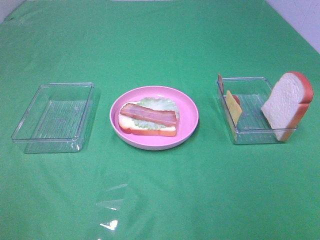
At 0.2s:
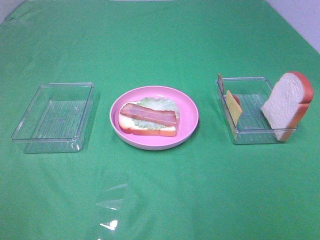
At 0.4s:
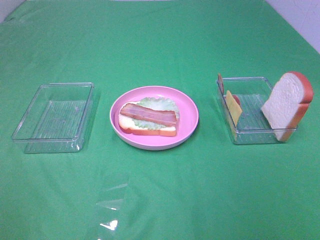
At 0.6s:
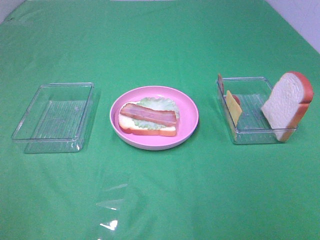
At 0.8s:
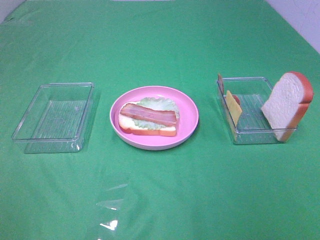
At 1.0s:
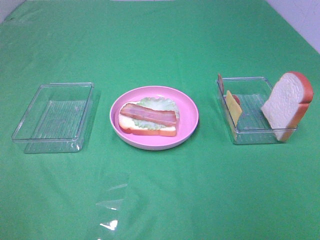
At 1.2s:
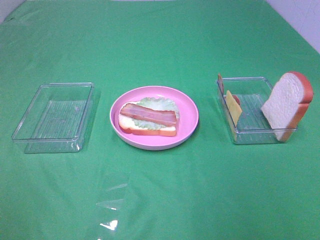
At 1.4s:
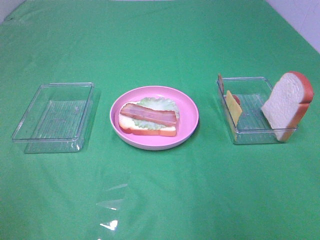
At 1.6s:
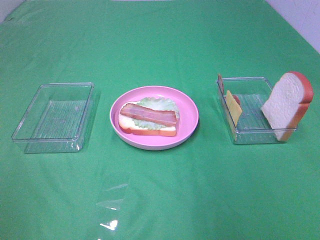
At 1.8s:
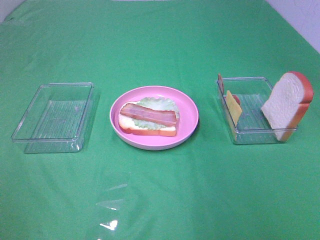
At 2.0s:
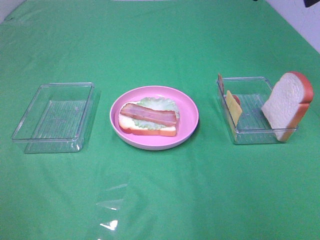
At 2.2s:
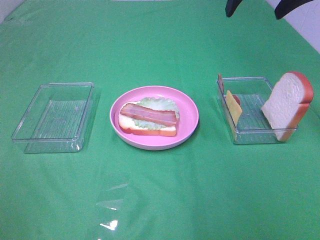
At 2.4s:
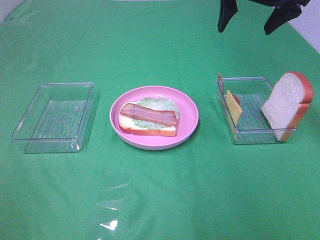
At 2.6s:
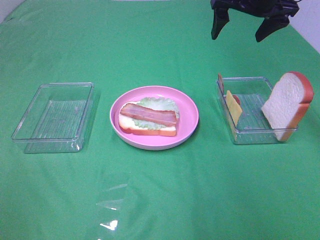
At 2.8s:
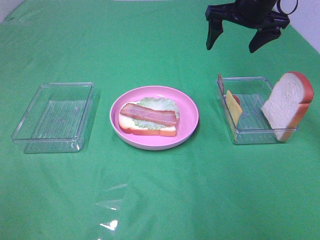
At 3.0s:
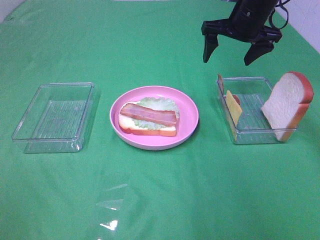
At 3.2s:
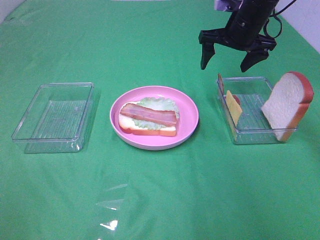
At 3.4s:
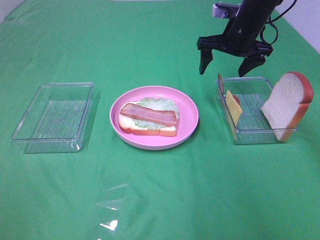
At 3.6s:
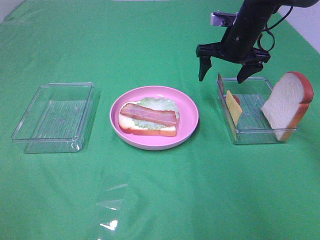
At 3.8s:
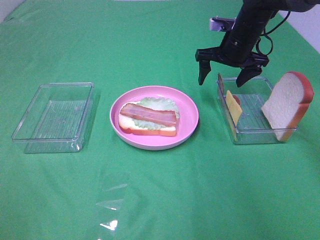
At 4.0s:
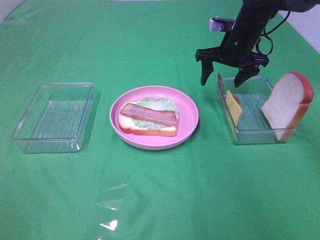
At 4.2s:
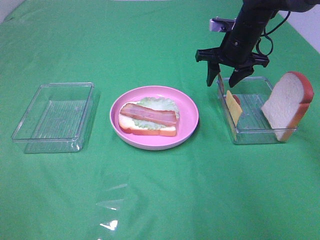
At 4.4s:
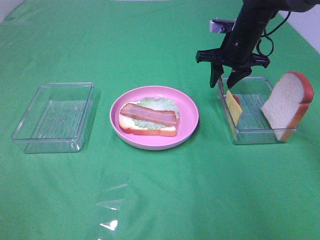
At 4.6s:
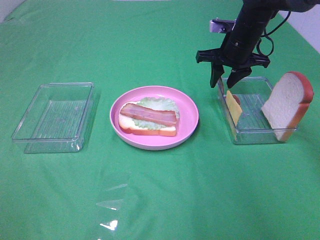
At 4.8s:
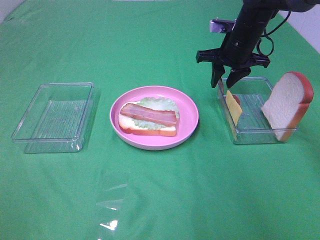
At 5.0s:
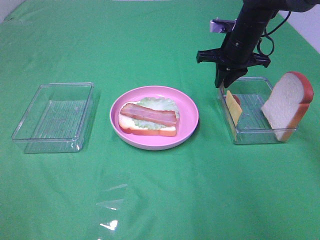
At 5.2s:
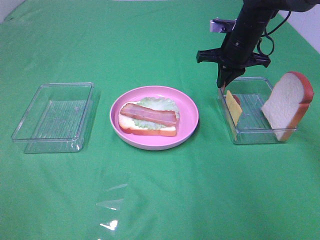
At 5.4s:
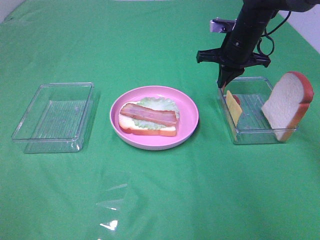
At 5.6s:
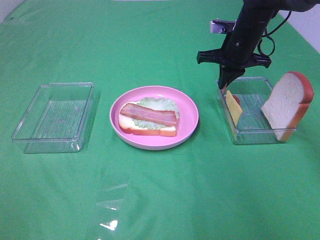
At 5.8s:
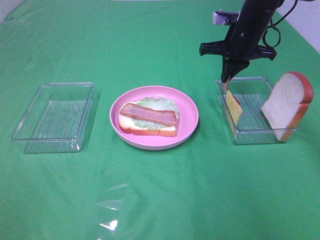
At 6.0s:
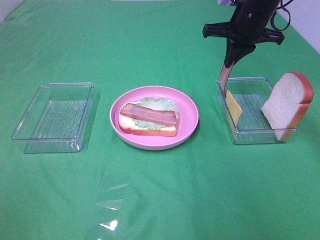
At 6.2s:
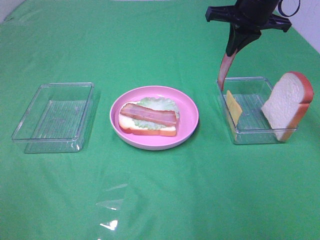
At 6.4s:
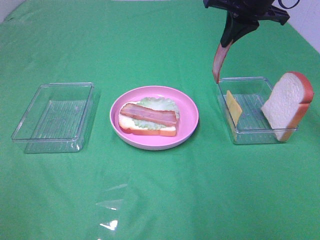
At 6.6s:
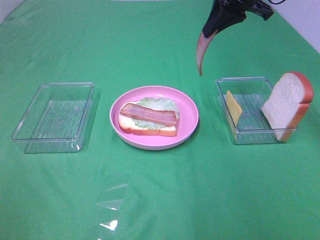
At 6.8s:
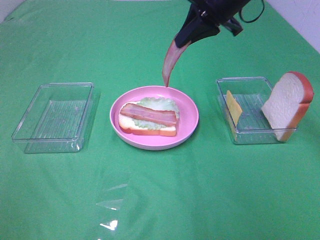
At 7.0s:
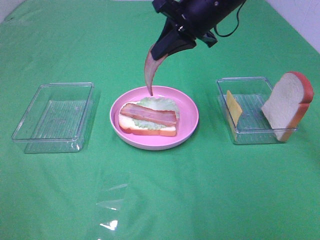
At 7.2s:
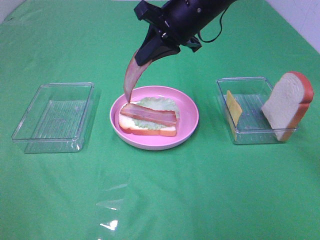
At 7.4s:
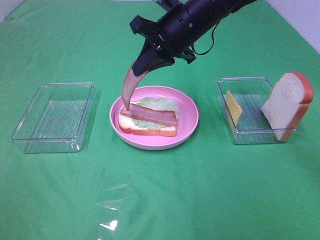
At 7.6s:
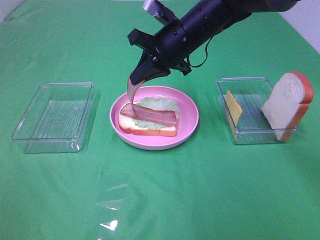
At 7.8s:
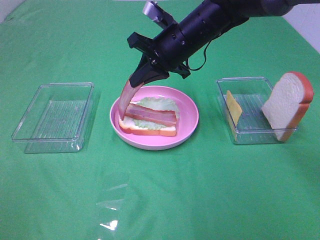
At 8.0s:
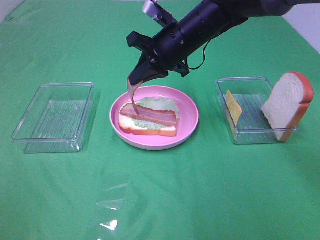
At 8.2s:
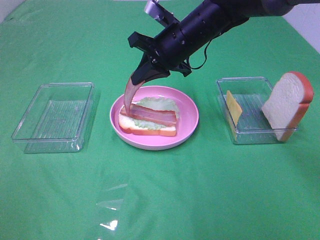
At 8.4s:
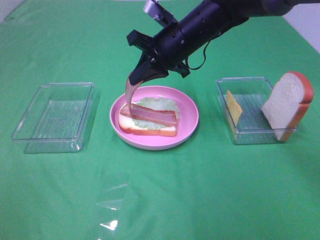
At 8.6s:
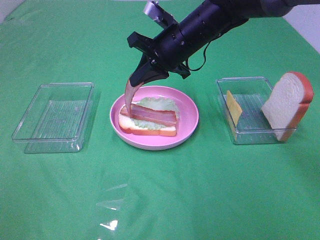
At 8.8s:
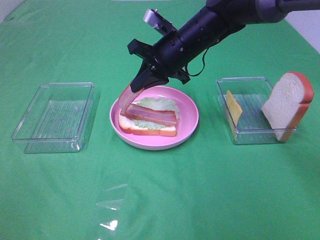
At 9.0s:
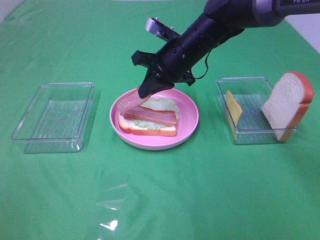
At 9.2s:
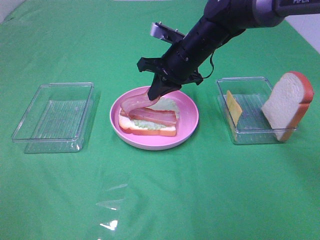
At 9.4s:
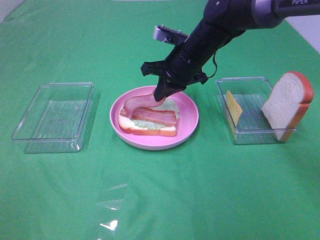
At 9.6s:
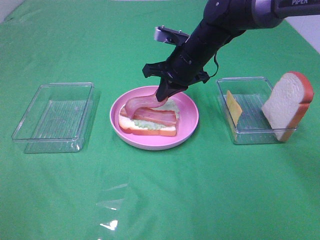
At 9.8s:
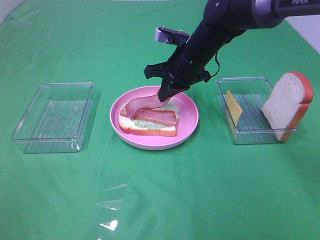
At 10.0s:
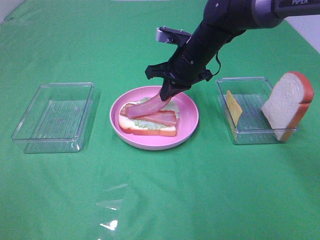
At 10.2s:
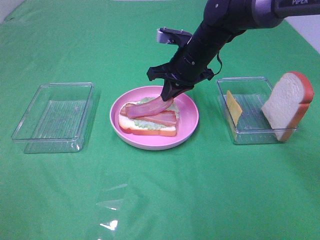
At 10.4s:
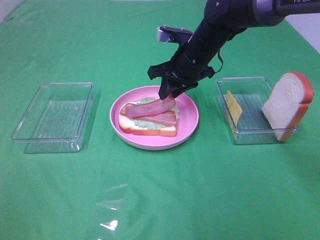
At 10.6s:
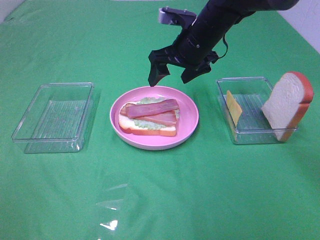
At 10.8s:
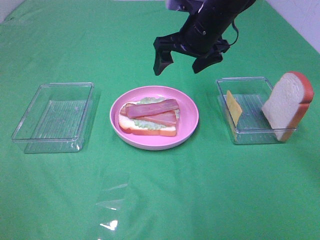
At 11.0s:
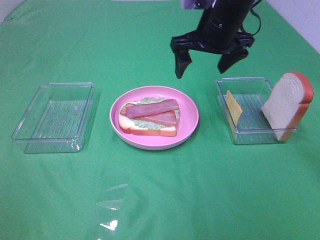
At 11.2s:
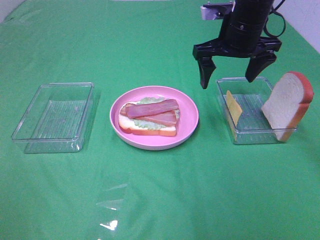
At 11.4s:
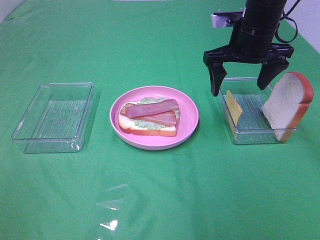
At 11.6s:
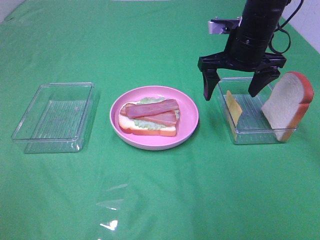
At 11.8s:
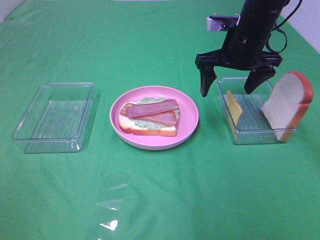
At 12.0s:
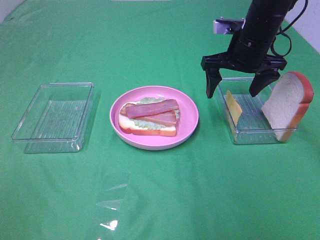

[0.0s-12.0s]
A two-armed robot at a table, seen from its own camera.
Task of the whole recording: Make sandwiches.
Step, 0.0s to 5.2s: Right hand:grab the bacon.
Step, 5.4s to 10.4s: Right hand:place bacon on bacon.
1.6s to 3.0s: The right gripper goes about 30 cm forward and downward.
3.0s to 4.4s: The right gripper moves downward, approximately 5 cm, and closes up.
4.4s to 6.0s: The right gripper travels upward by roughly 5 cm, and closes up.
6.0s to 7.6s: The right gripper goes some 15 cm to the left.
7.6s to 9.0s: The grippers make only small movements.
9.0s to 10.4s: The right gripper opens.
10.4s to 12.0s: The right gripper moves to the right, roughly 10 cm, and opens.

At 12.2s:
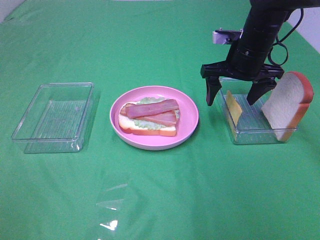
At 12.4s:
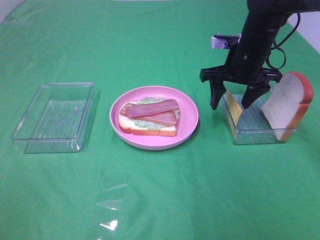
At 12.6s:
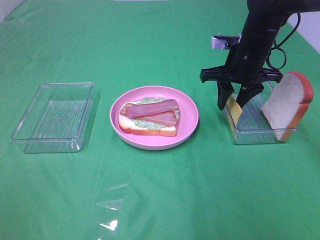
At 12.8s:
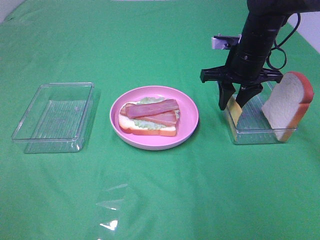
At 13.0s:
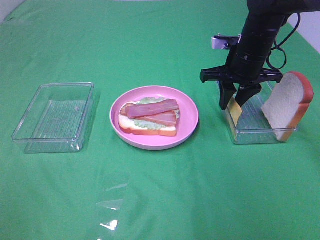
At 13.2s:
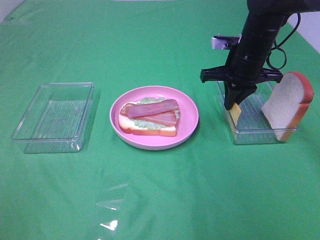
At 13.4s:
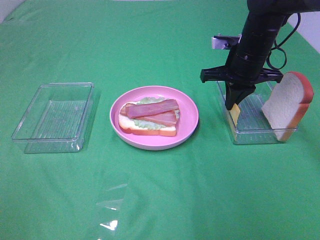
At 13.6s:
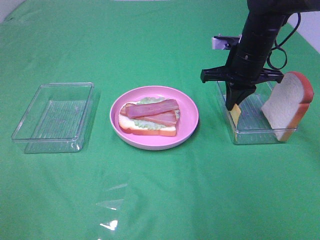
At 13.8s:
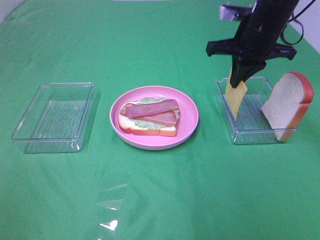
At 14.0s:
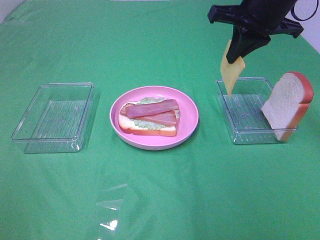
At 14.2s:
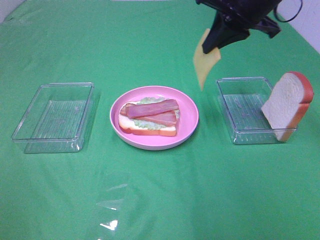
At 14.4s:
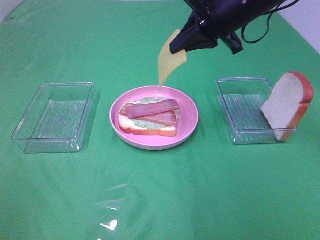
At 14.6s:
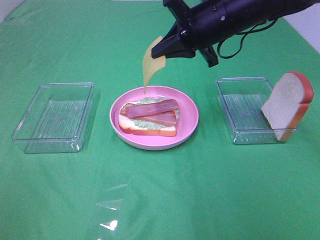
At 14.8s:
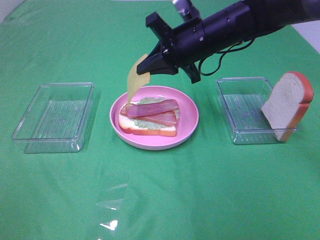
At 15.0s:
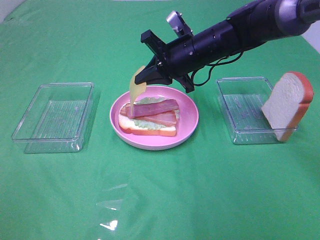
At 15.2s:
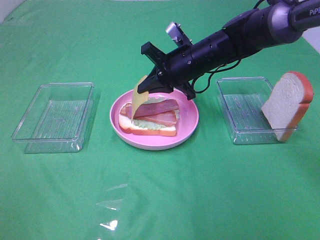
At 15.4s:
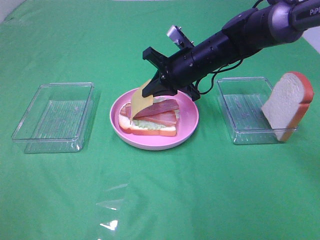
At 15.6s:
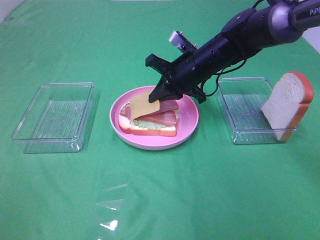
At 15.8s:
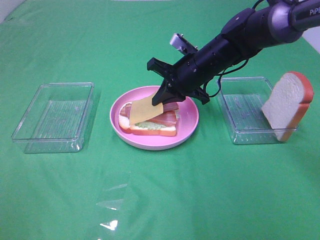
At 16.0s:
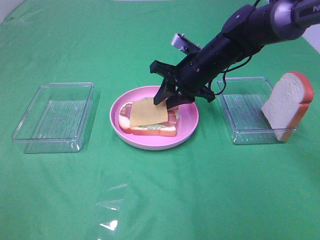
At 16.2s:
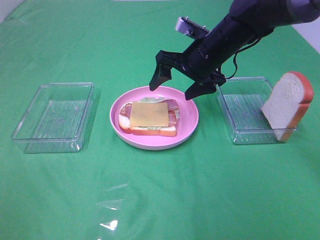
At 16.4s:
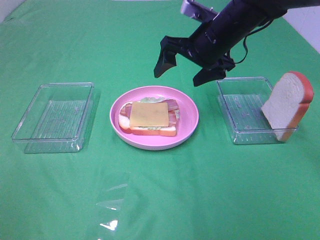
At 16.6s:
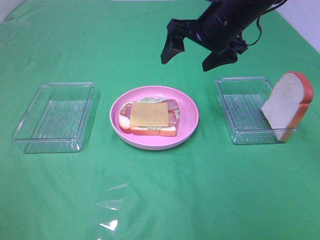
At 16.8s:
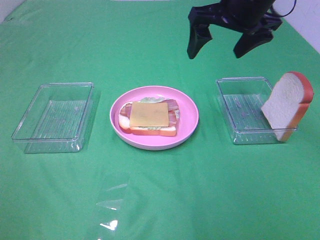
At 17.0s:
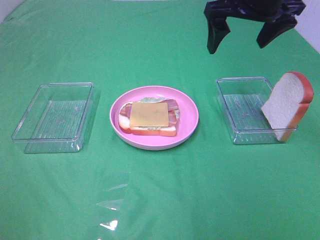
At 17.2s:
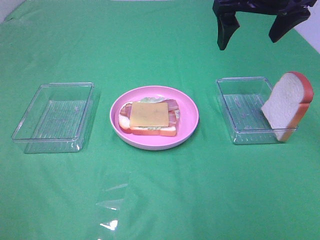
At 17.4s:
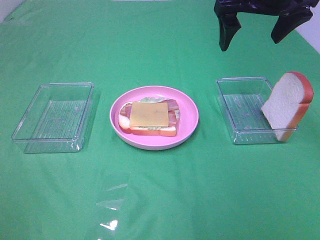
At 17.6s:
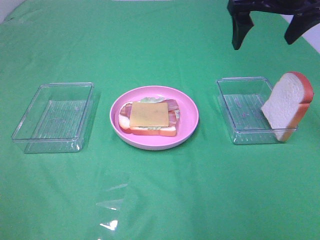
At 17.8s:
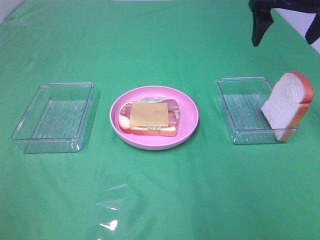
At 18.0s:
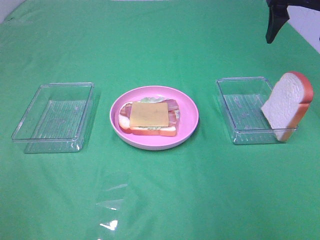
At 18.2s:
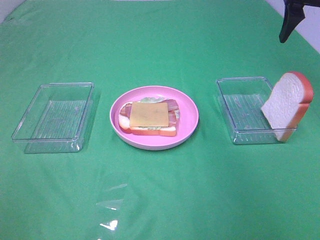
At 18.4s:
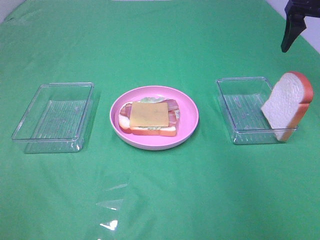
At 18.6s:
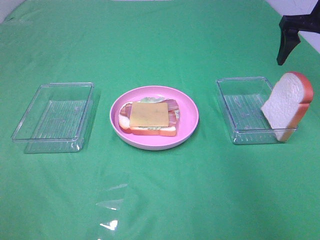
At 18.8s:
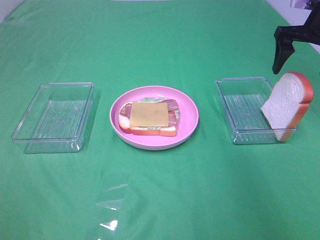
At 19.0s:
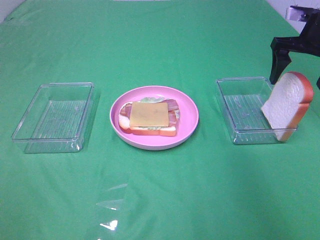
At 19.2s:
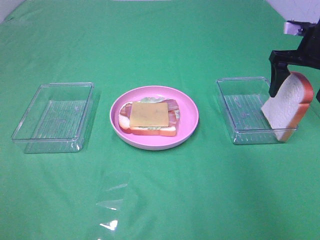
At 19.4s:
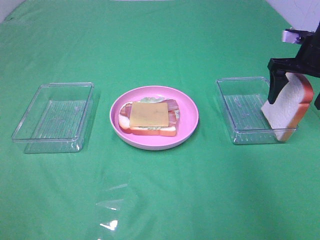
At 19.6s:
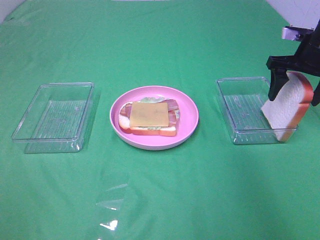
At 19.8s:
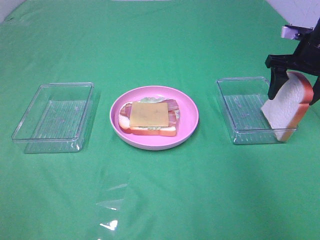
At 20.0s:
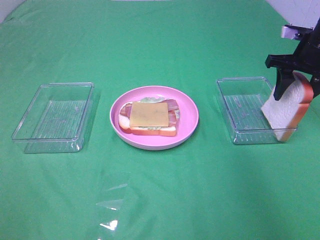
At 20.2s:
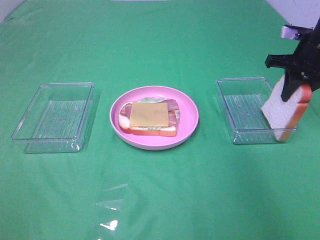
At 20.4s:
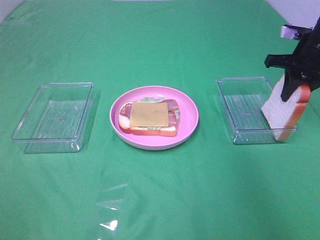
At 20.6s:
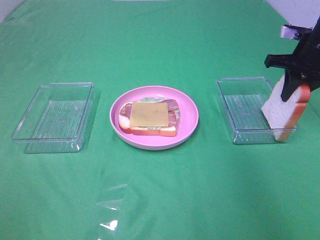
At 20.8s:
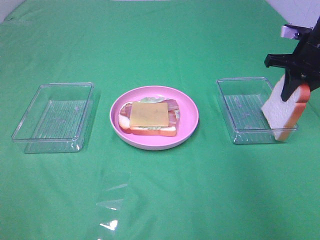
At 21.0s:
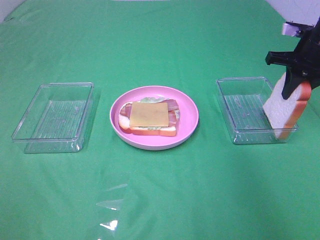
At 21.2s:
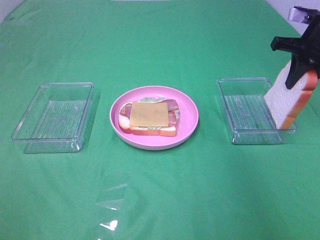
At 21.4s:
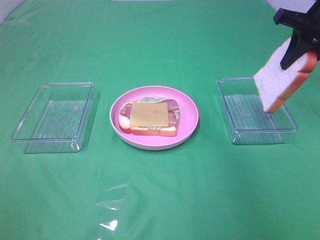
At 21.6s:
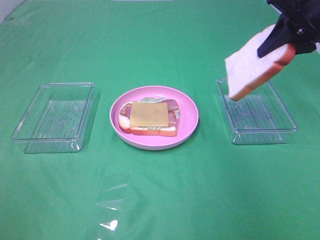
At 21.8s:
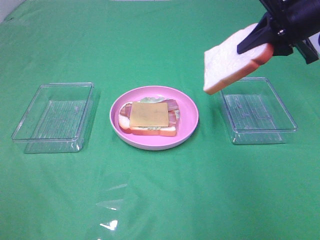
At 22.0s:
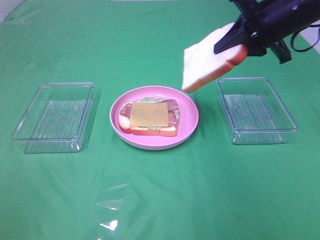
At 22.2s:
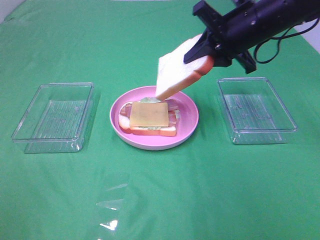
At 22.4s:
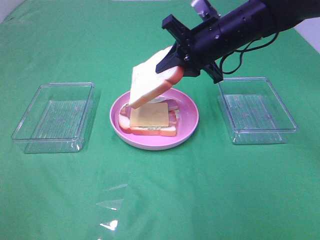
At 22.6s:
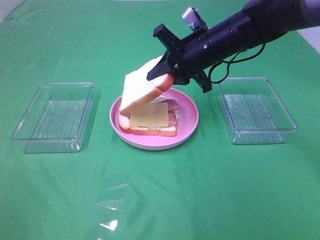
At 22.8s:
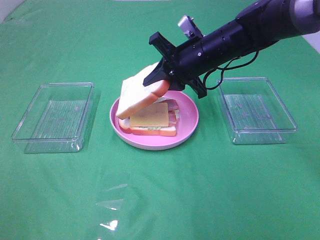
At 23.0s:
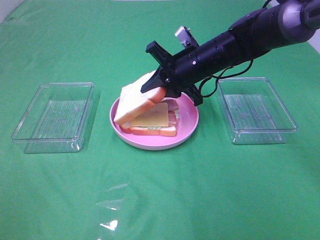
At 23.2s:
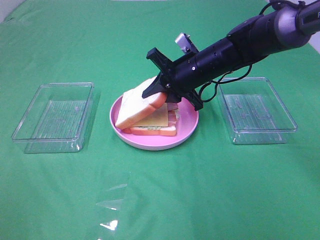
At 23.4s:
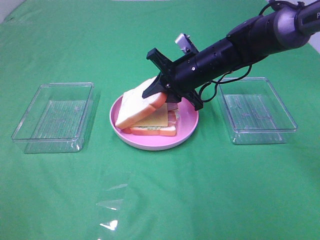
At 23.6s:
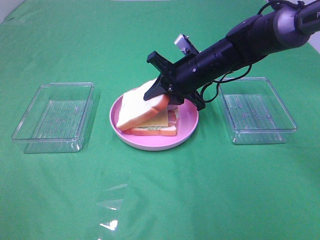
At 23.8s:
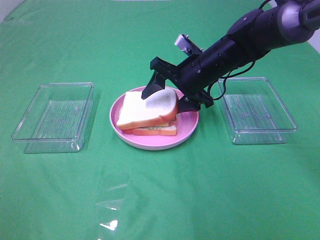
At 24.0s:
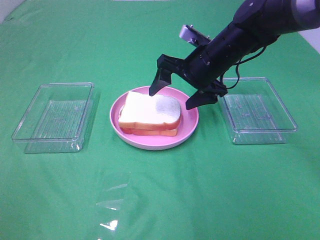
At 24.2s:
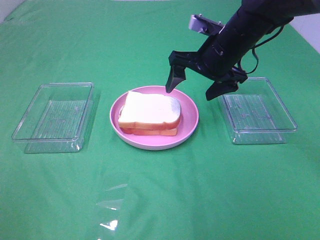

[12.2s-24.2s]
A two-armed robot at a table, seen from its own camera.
Task of the whole recording: Make sandwiches.
Step, 13.6s to 16.0s: Right hand:place the cheese slice on top of the bacon.
Step, 16.2s to 20.4s: Right hand:grab the bread slice.
Step, 20.6s to 24.0s: Right hand:place the bread slice on the cheese slice.
12.2s to 13.8s: The right gripper shifts approximately 5 cm upward, and closes its fingers.
13.8s to 15.2s: The right gripper goes roughly 15 cm to the left and downward.
15.2s to 16.6s: The right gripper goes some 10 cm upward, and opens its fingers.
16.6s to 18.2s: The right gripper heads to the right, covering about 15 cm.
18.2s to 19.8s: The right gripper is displaced downward by about 10 cm.
19.8s to 21.2s: The right gripper closes its fingers.
21.2s to 22.6s: The right gripper travels to the left by approximately 20 cm.
22.6s to 24.2s: The right gripper opens its fingers.
